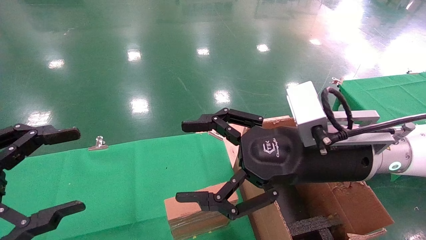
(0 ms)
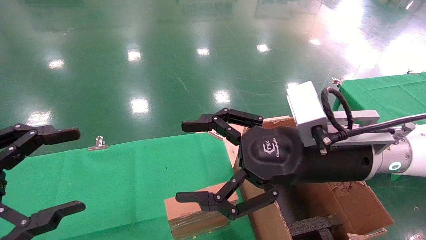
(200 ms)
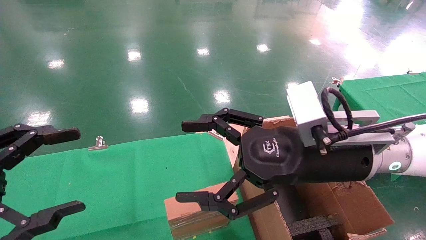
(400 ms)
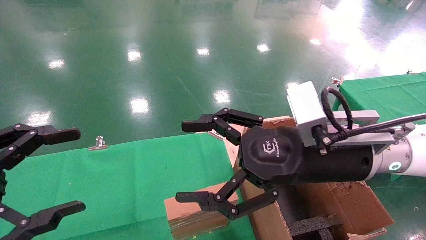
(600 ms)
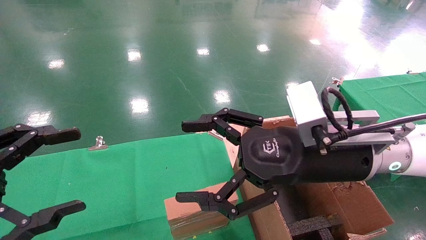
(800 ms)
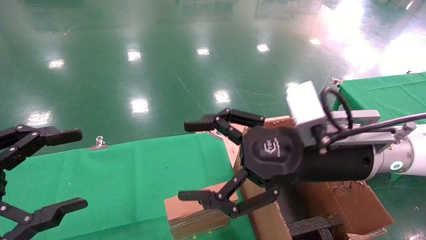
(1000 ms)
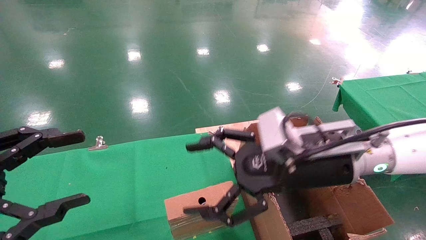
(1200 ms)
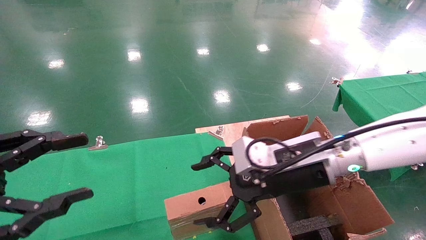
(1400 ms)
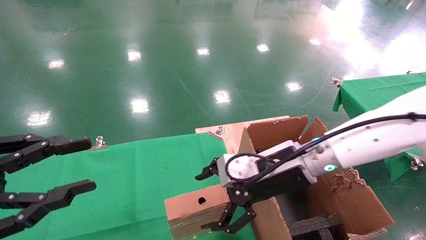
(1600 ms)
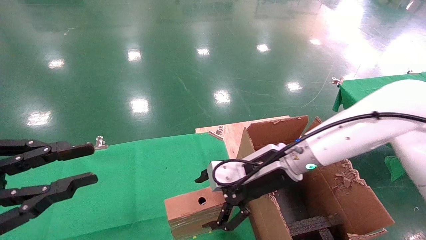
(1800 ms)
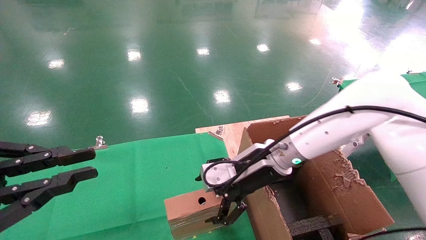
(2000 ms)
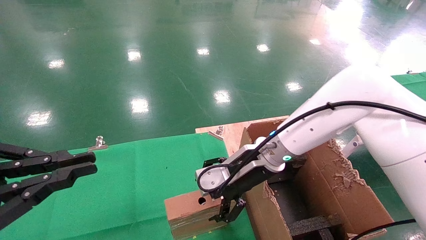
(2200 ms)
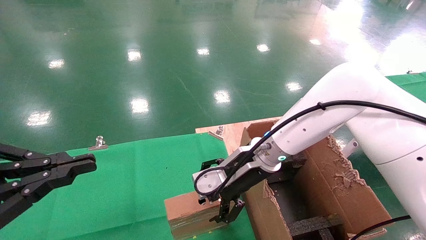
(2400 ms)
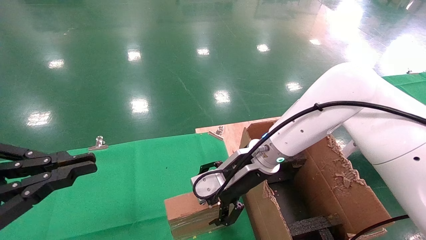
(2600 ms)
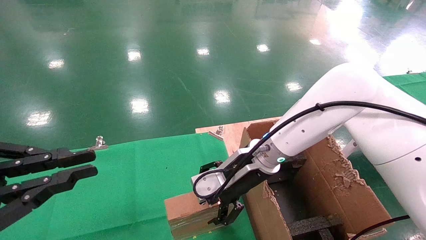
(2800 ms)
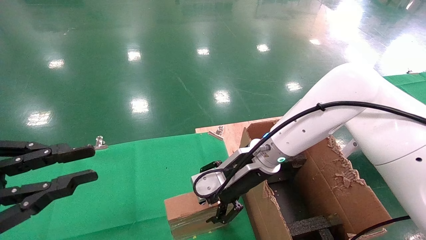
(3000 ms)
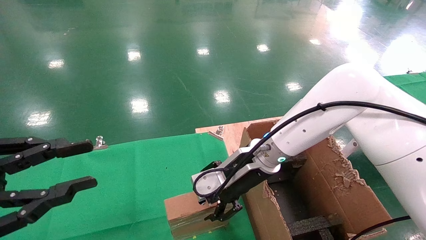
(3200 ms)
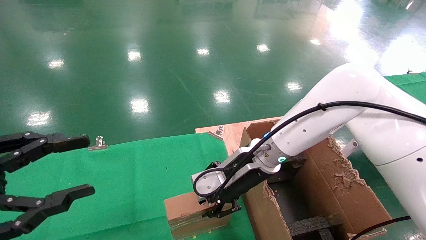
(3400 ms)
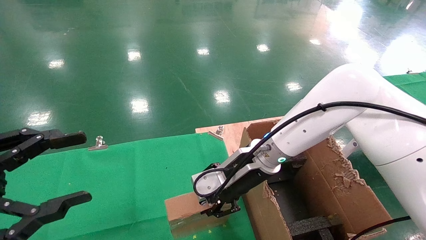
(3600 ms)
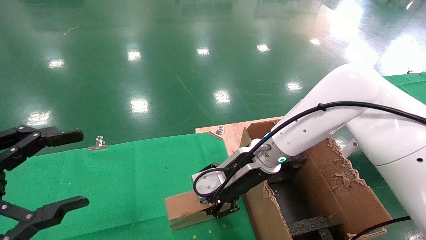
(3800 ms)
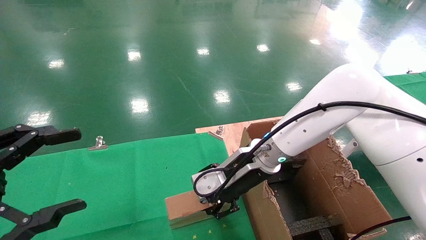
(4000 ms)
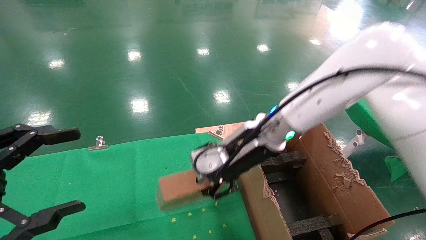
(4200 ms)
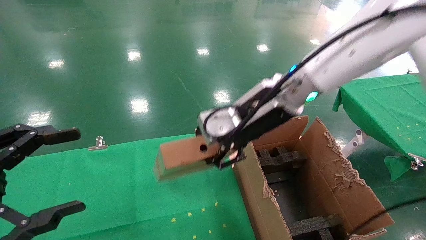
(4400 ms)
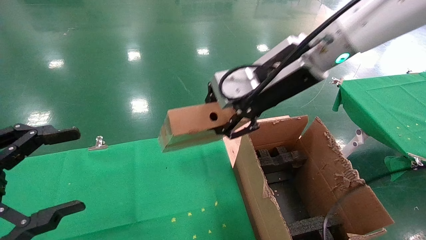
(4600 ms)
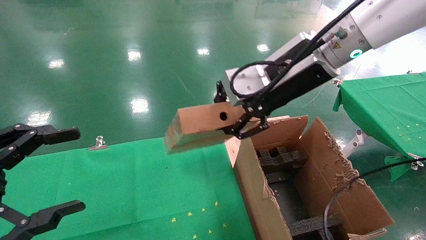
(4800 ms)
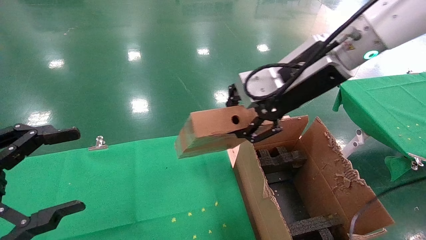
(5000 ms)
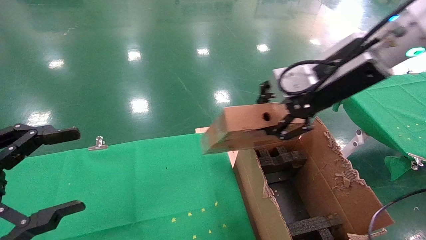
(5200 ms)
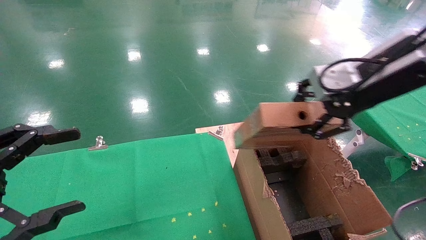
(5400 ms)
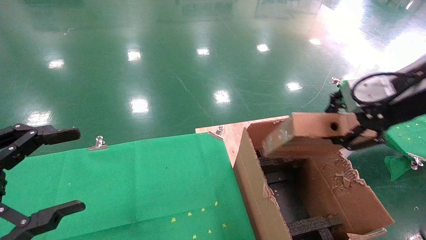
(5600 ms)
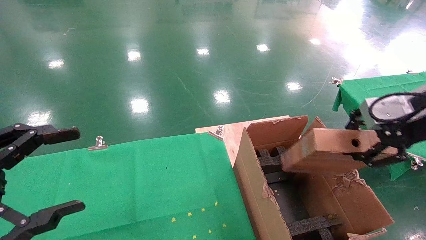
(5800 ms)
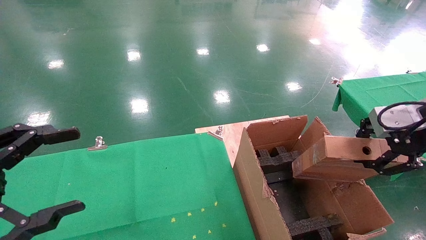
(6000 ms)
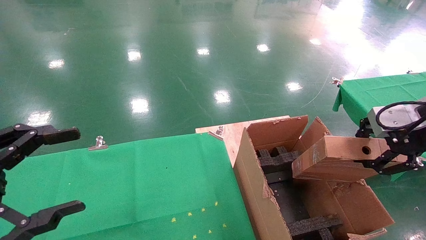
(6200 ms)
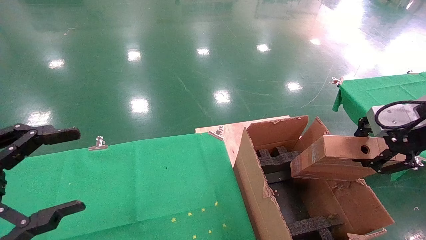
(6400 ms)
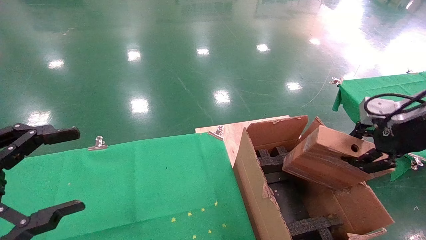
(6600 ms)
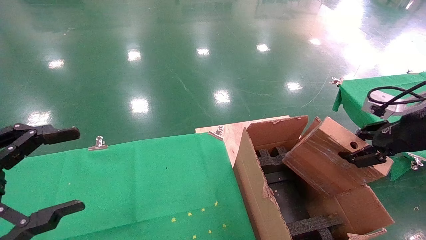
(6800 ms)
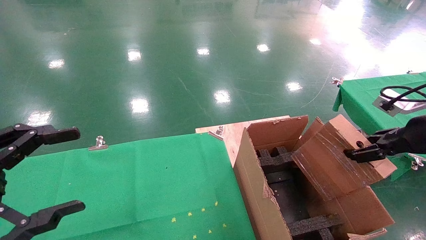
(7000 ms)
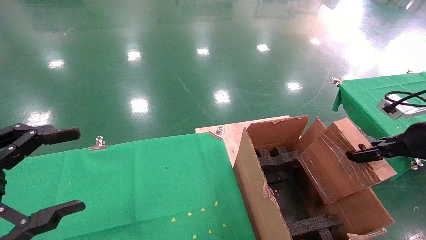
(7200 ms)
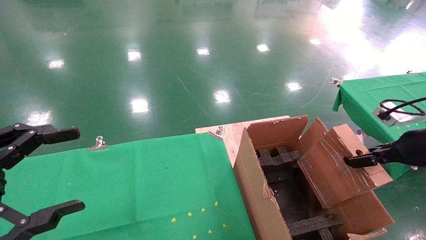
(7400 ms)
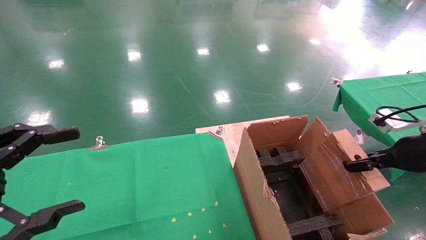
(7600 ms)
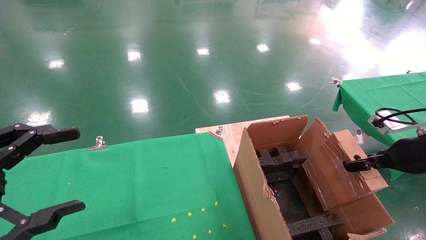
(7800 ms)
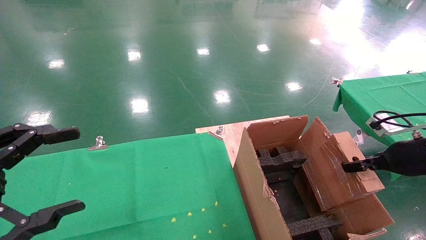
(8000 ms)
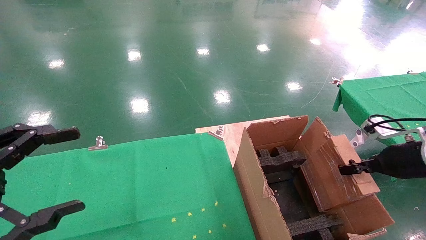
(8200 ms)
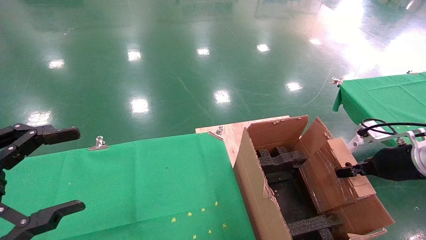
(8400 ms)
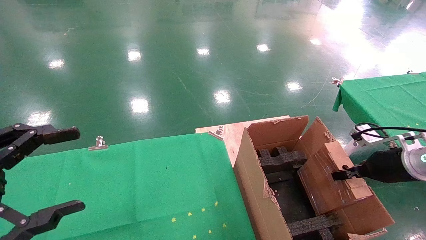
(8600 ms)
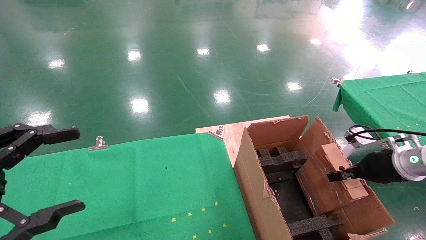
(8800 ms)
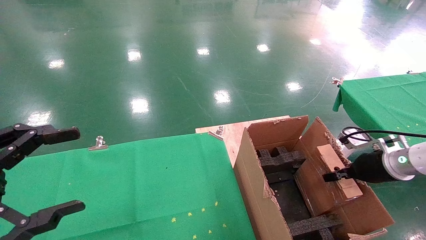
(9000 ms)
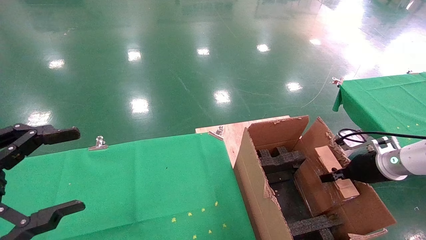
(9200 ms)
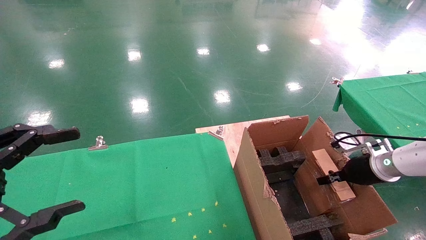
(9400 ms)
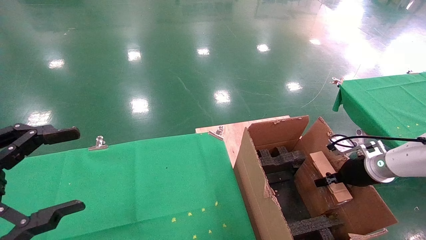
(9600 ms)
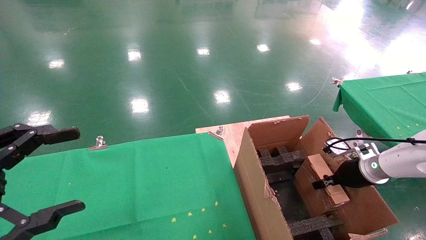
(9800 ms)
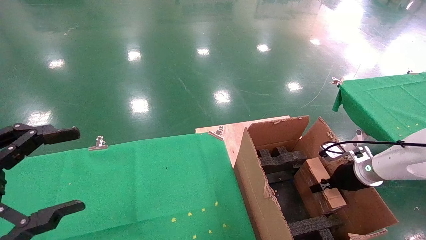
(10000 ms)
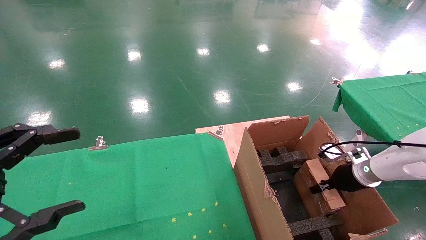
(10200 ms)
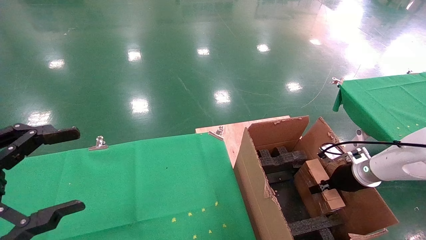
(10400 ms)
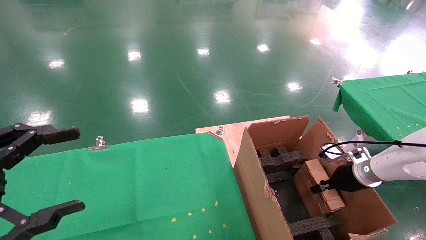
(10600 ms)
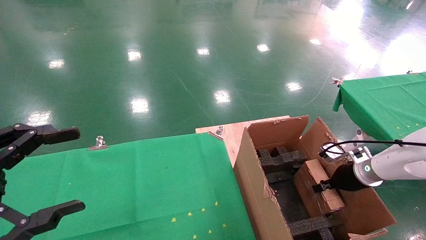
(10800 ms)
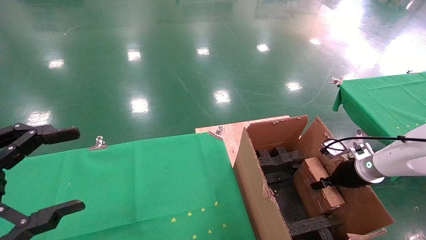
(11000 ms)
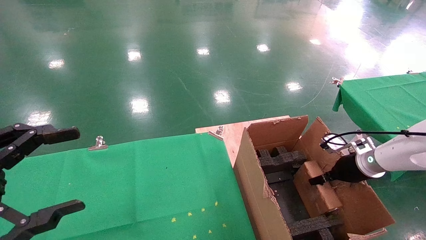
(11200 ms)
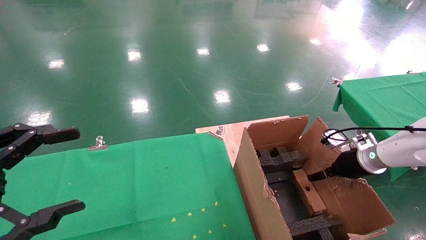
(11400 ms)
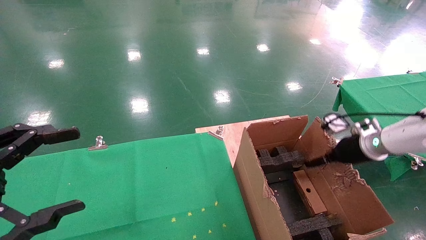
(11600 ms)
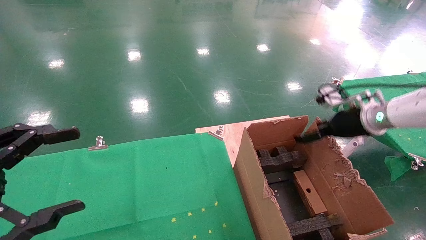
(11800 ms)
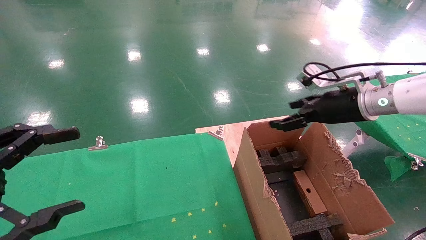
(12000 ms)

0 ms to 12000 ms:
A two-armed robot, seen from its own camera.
Task of the whole recording: using a robotic arm to pick up a cardboard box and palace it the carton.
Step, 1400 ms to 4000 ms: Pick up the mouse and the power cord paper box.
Step, 4200 ms to 11400 ms: Place the mouse and the power cord paper box into the container.
0 ms to 1600 ms: The right gripper goes approximately 10 cm forward and downward, while the left gripper closes its fingers.
1600 ms to 3000 ms: The left gripper closes. Meanwhile the right gripper changes place by some 5 cm.
3000 ms to 4400 ms: The right gripper travels upward by about 15 cm, and closes, while the left gripper opens up.
4400 ms to 6000 ms: The right gripper heads to the right and backward, covering about 30 cm.
6000 ms to 7600 ms: The right gripper travels downward and to the right by roughly 15 cm.
7600 ms to 9000 ms: The right gripper is displaced downward and forward by roughly 10 cm.
9000 ms to 10400 ms: The right gripper heads downward and forward, covering roughly 10 cm.
10400 ms to 12000 ms: The right gripper heads upward and to the left, covering approximately 20 cm, and opens its fingers.

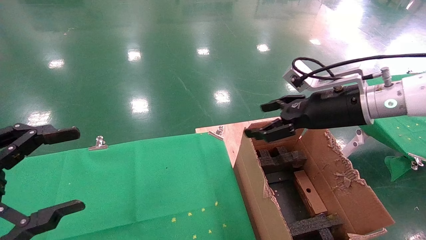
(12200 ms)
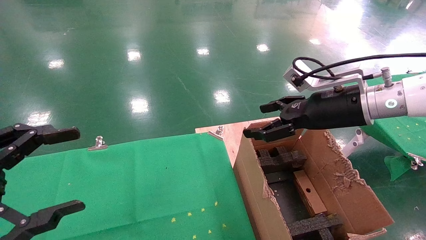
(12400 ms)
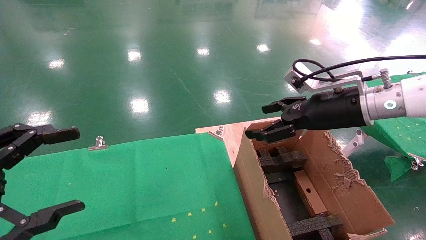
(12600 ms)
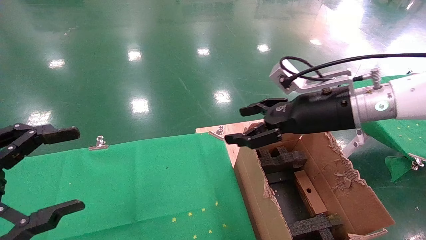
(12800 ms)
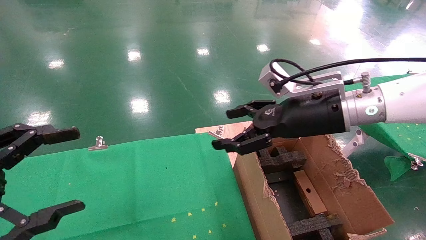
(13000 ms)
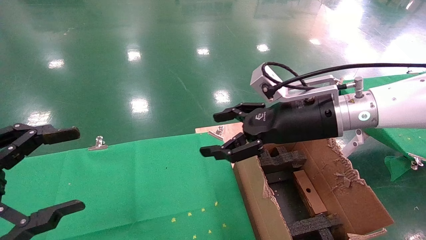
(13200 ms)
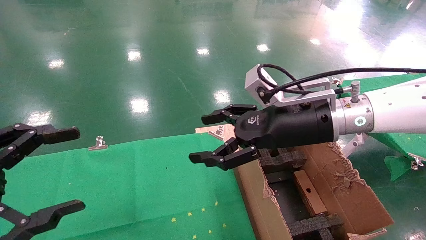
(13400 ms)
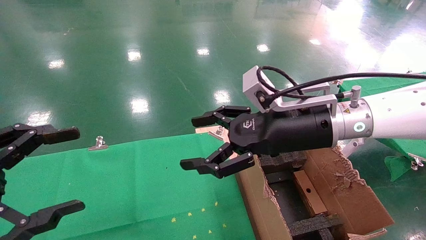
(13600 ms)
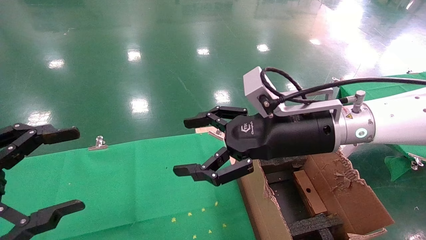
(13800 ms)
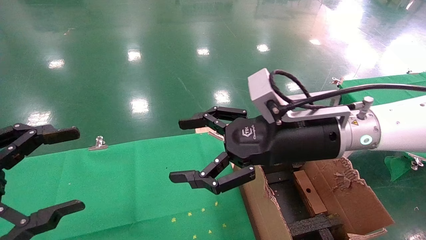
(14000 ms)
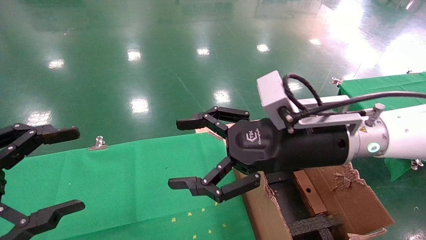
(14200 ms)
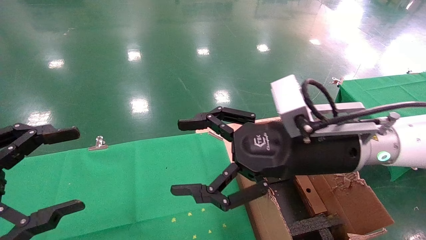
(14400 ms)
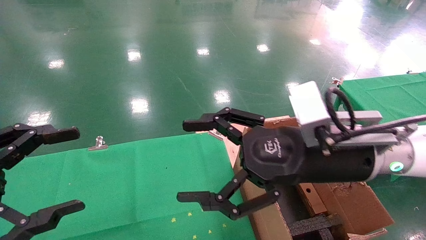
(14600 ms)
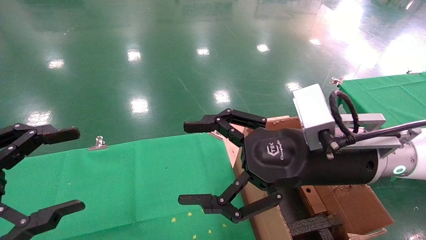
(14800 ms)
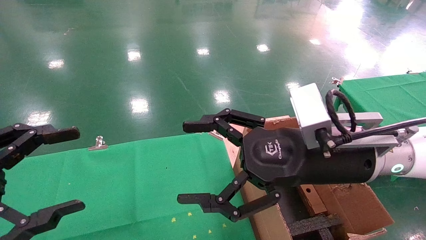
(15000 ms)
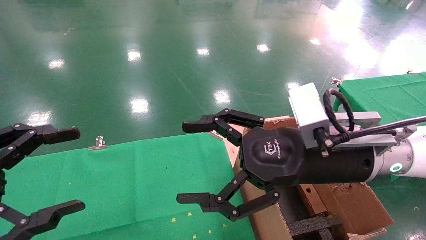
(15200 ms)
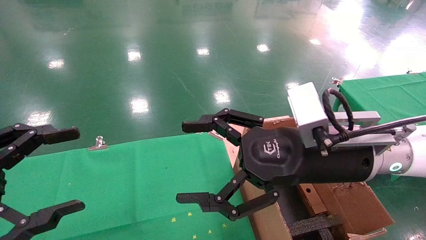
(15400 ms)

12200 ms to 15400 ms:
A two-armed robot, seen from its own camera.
Task of the whole recording: using a robotic arm to pick up a cardboard box and palace it the carton.
12200 ms to 13800 ms: The right gripper goes roughly 15 cm to the left and backward.
13800 ms to 15400 ms: The right gripper ends up roughly 5 cm from where it was.

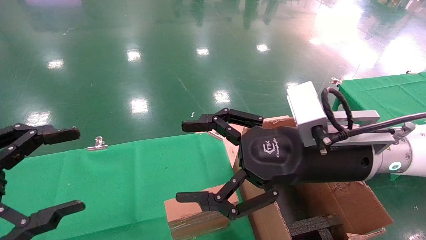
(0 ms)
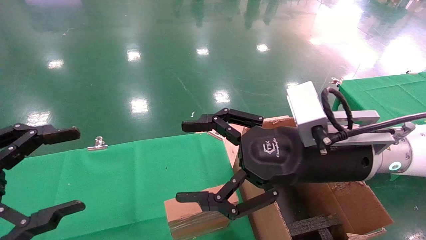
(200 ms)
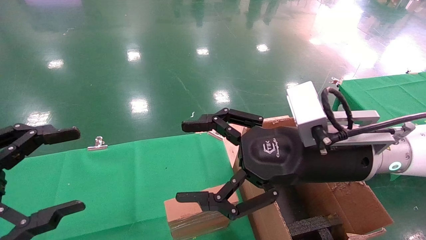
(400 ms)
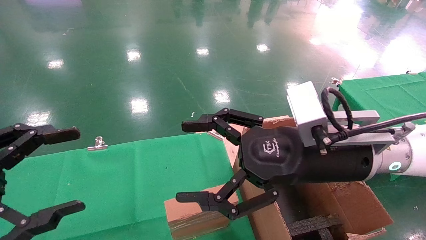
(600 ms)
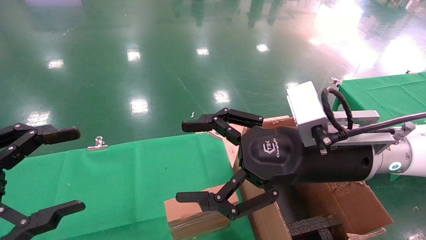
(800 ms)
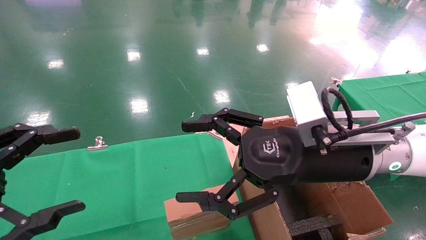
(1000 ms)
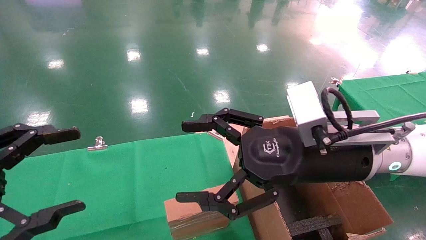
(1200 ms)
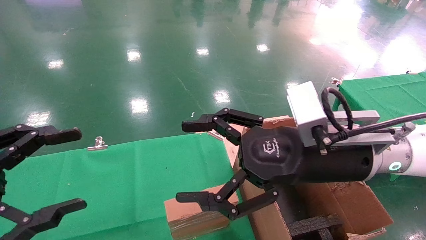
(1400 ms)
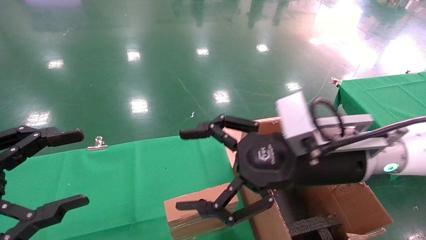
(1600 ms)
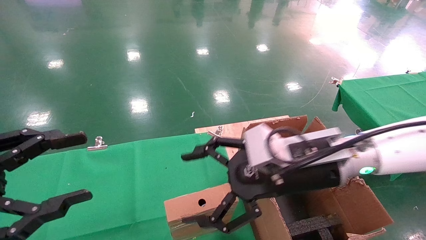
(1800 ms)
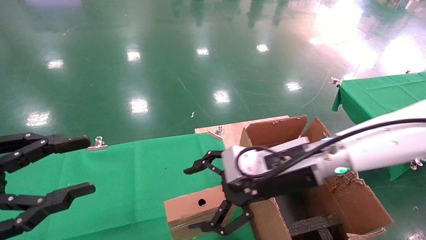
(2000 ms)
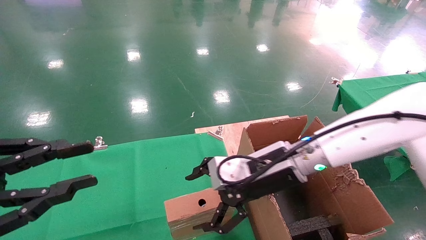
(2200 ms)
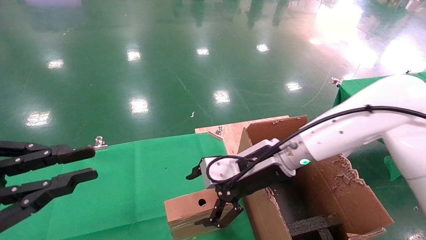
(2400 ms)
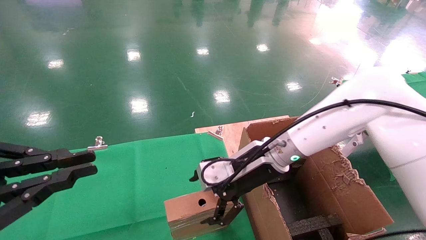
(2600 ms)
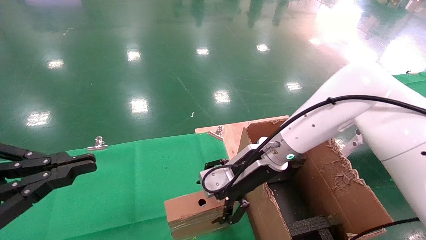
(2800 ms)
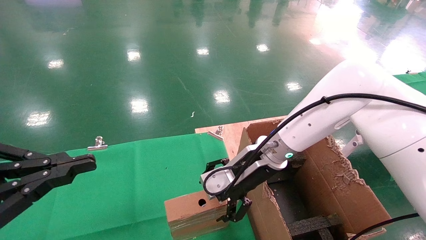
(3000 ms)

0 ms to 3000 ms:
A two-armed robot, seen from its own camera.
Task of the whole recording: using a robotic arm to pick up a cardboard box and palace it the carton.
0 ms to 1600 ms: The grippers stay close to where they were, moving slightly.
1600 ms to 3000 ms: The left gripper closes its fingers, while the right gripper is displaced forward and downward by some 15 cm.
